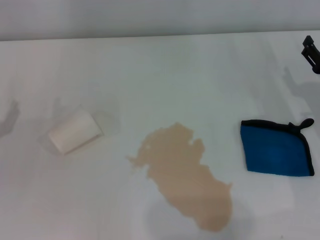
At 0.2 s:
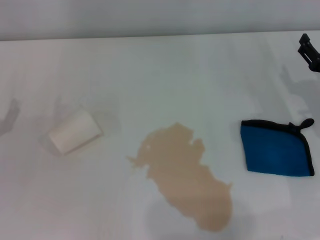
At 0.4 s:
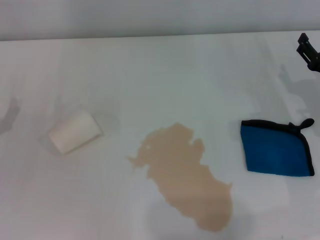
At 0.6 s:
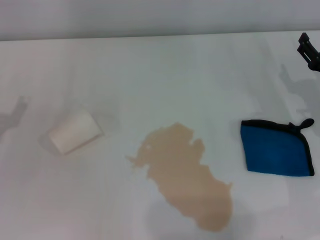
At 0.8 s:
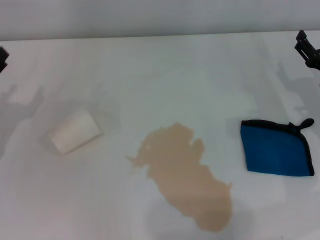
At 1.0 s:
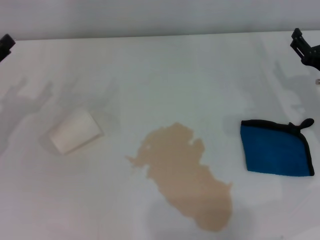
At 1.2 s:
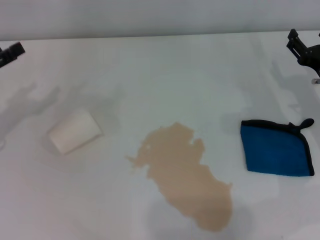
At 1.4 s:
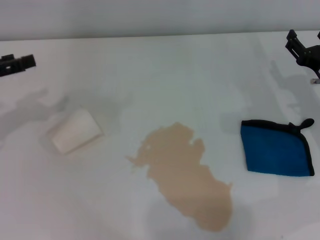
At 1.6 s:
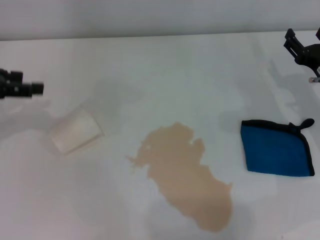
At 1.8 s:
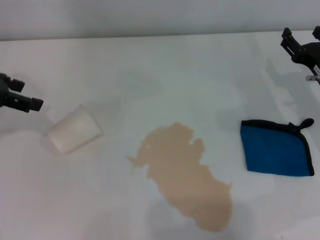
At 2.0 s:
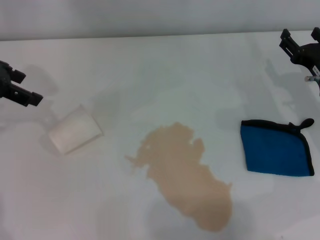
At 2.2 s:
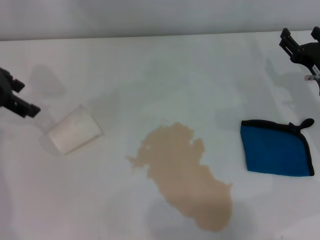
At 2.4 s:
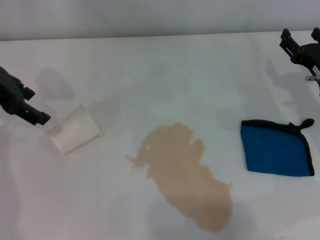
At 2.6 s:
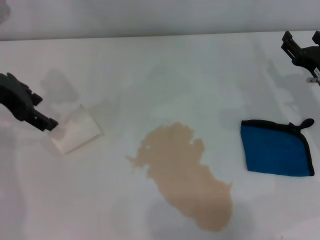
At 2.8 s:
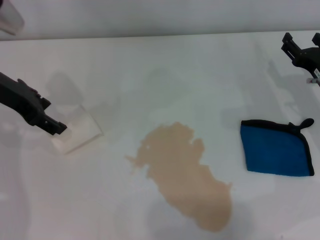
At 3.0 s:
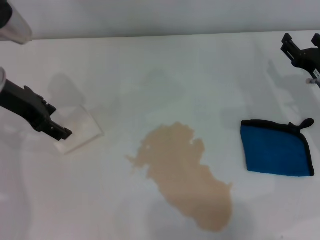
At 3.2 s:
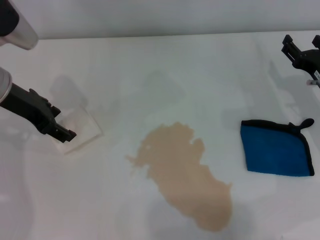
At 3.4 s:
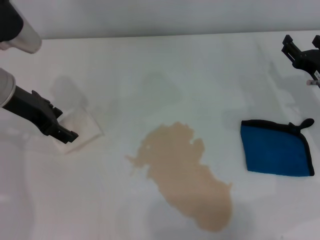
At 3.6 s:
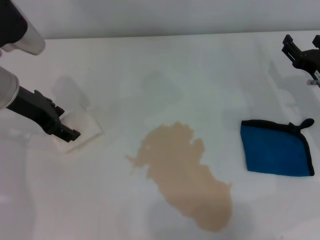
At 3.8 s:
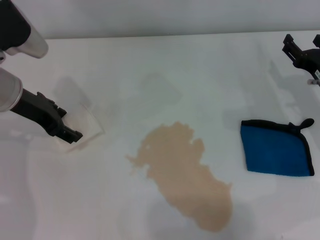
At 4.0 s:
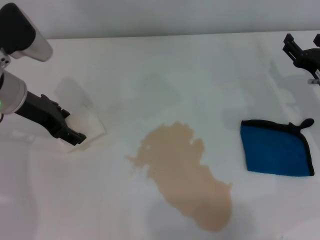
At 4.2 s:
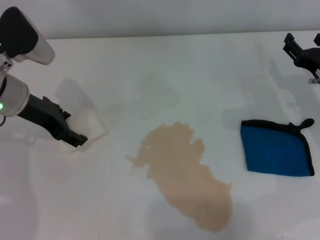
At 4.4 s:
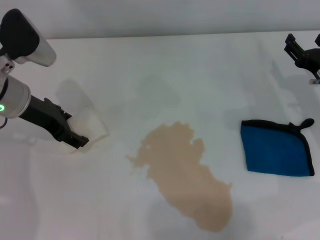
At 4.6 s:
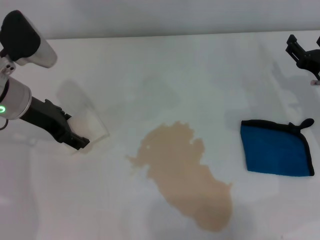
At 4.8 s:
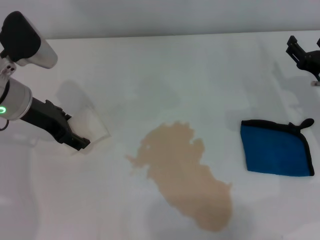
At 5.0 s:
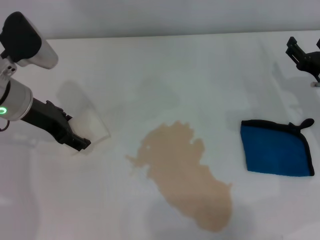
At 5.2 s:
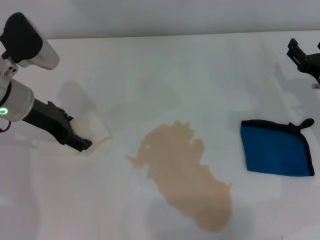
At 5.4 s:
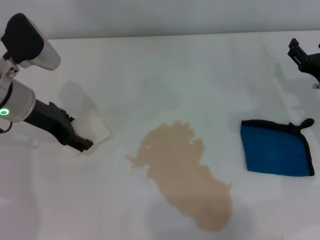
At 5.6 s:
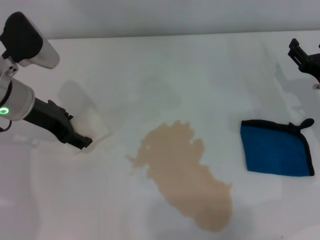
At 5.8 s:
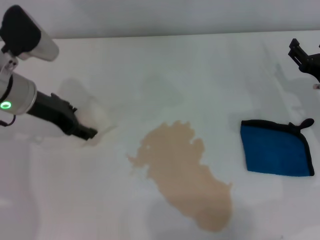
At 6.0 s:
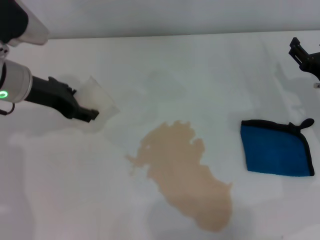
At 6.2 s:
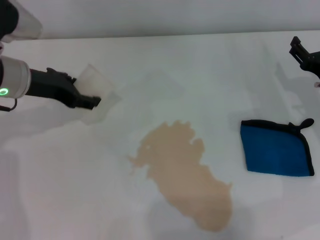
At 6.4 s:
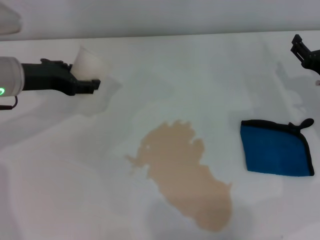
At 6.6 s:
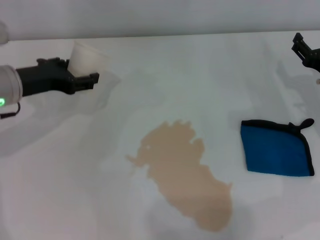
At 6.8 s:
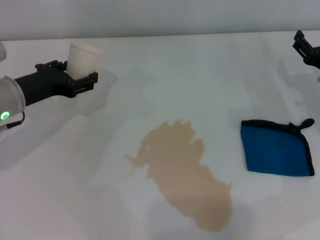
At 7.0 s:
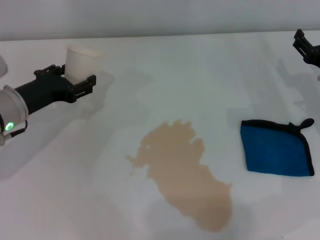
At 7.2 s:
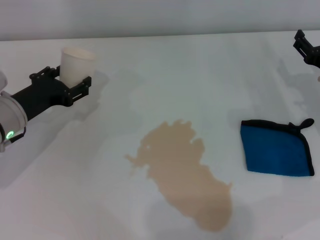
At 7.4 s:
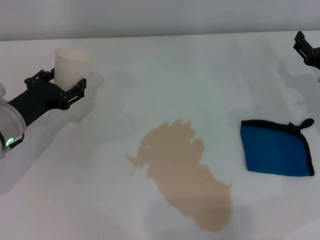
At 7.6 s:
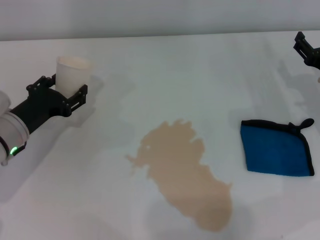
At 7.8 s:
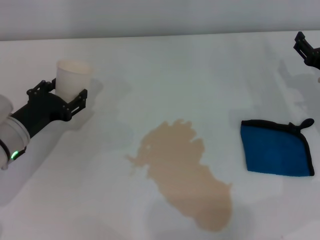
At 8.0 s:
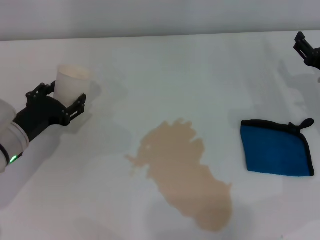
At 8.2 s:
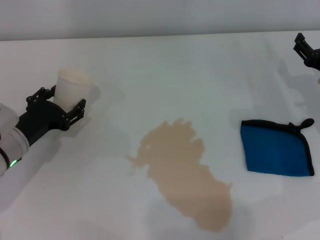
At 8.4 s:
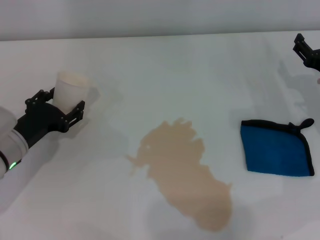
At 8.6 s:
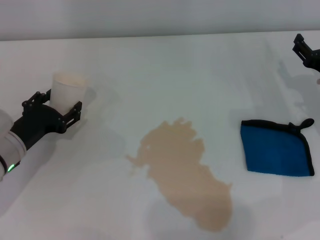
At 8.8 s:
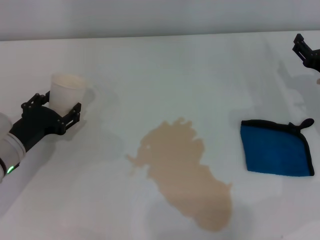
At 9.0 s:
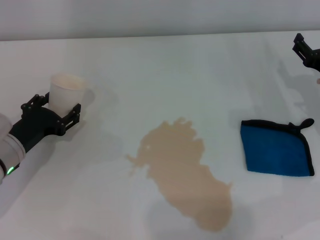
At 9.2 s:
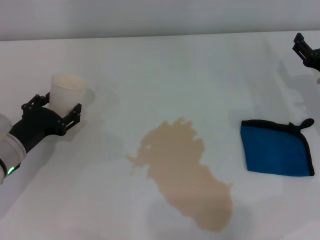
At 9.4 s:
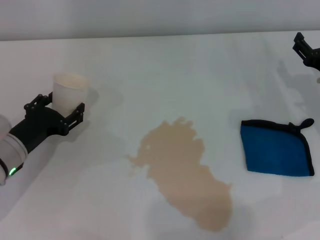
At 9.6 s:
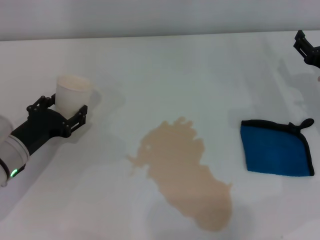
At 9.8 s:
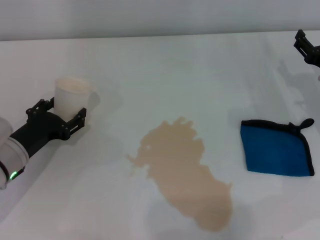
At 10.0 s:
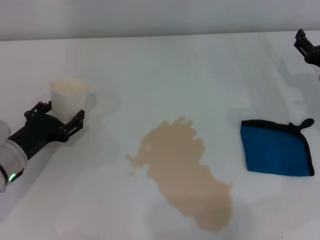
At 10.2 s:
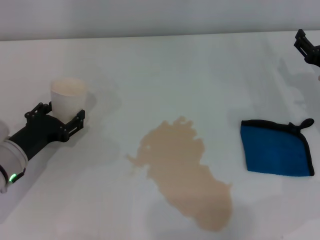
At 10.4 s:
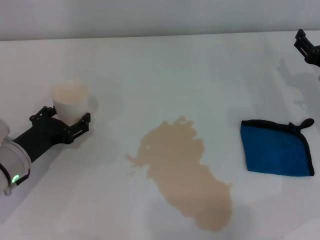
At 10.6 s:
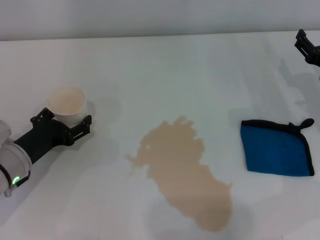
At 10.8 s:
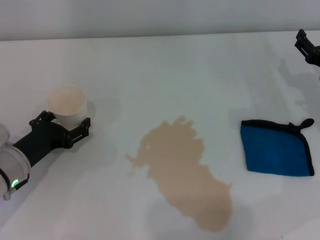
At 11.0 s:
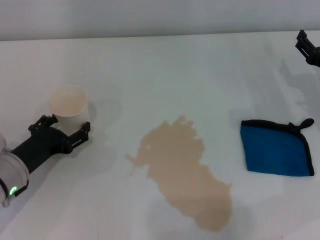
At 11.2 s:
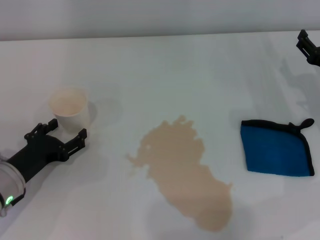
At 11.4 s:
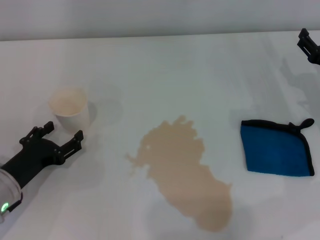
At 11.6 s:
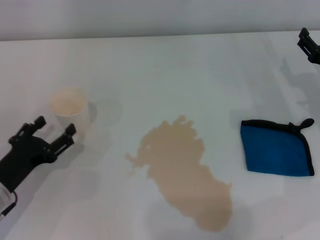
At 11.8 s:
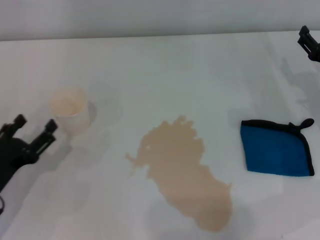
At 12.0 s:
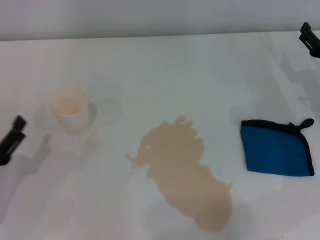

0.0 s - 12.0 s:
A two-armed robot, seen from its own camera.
Step, 0.0 s - 5.6 s: Grasp the paper cup with the left gripper.
Step, 6.0 s - 10.8 s: Stand the paper cup upright with the left gripper.
0.0 s - 1.6 s: The left gripper shifts some 20 cm upward and forward.
1.6 s - 3.0 s: The left gripper shifts roughly 10 cm to the right.
3.0 s - 4.4 s: The grippers stay close to where they were, moving slightly.
4.4 s - 6.0 s: The left gripper closes.
6.0 s - 7.6 s: The left gripper shifts approximately 10 cm downward and backward.
7.6 s - 10.4 s: The grippers move only a little.
10.4 s - 12.0 s: The left gripper travels backward and to the left by about 10 cm, and opens its fingers.

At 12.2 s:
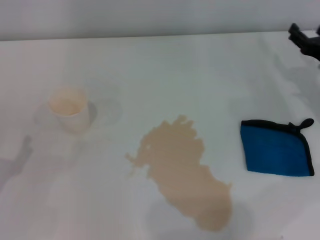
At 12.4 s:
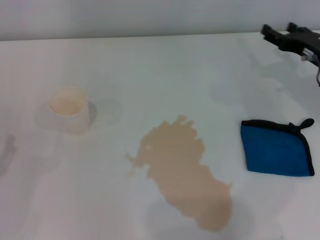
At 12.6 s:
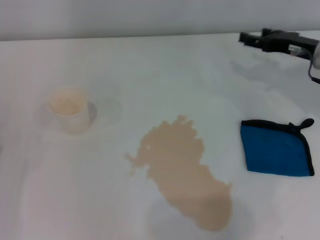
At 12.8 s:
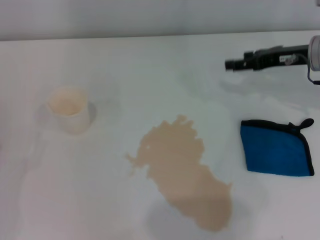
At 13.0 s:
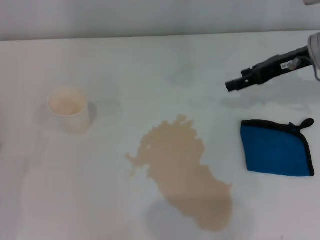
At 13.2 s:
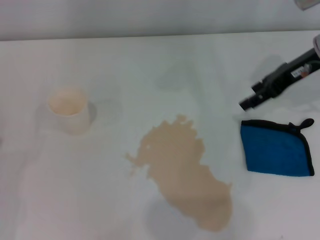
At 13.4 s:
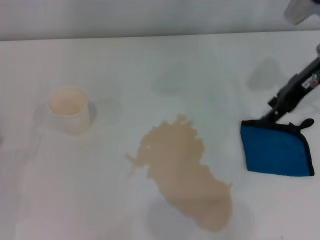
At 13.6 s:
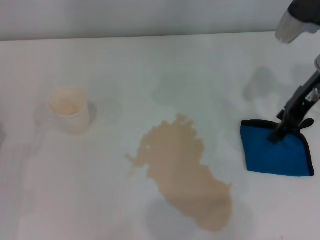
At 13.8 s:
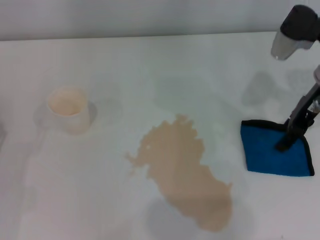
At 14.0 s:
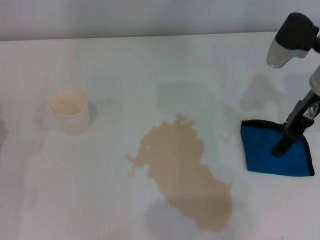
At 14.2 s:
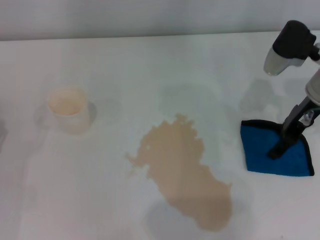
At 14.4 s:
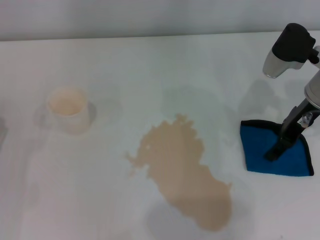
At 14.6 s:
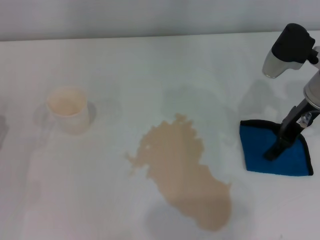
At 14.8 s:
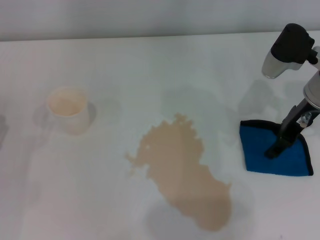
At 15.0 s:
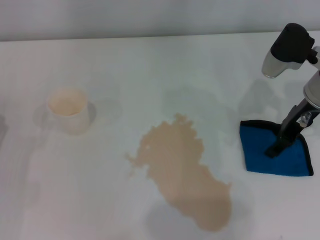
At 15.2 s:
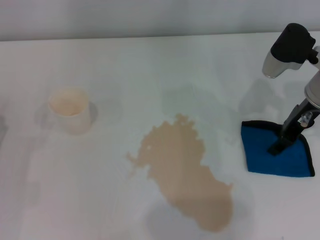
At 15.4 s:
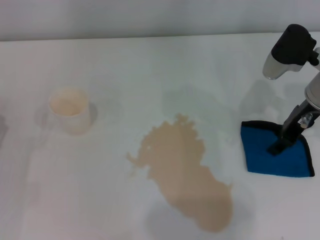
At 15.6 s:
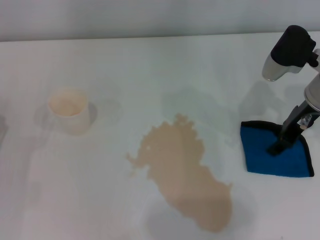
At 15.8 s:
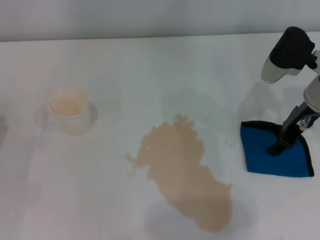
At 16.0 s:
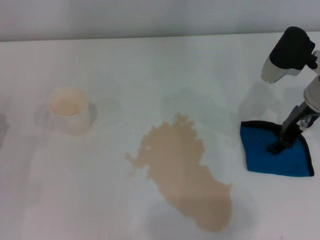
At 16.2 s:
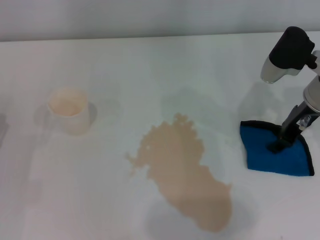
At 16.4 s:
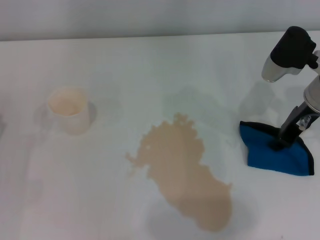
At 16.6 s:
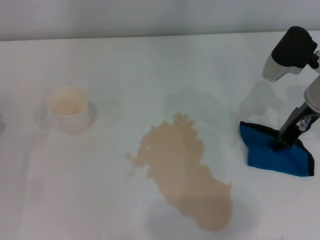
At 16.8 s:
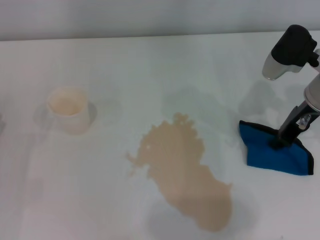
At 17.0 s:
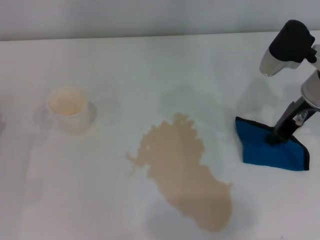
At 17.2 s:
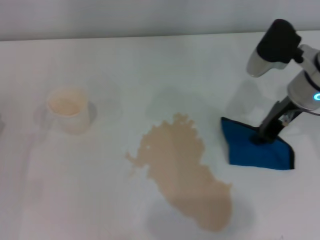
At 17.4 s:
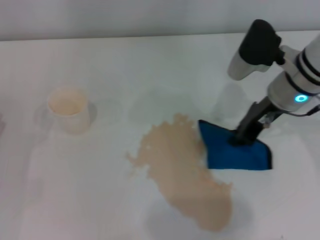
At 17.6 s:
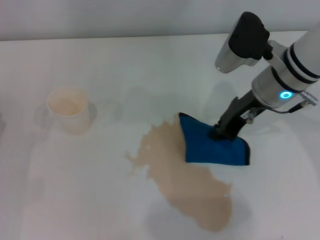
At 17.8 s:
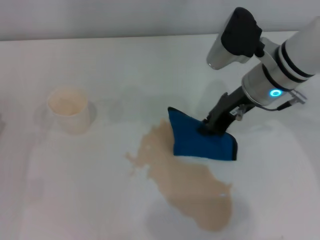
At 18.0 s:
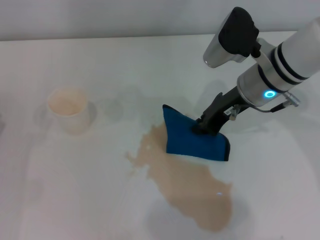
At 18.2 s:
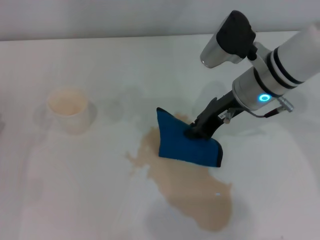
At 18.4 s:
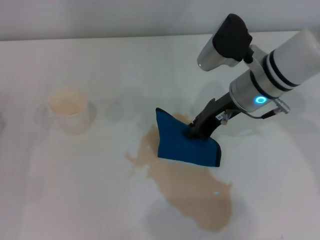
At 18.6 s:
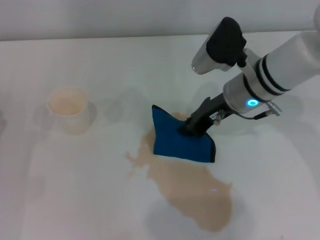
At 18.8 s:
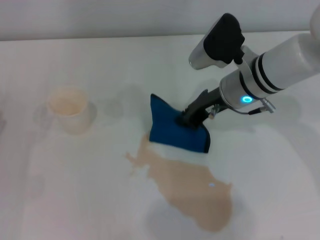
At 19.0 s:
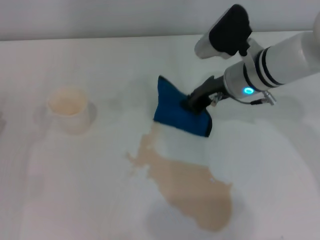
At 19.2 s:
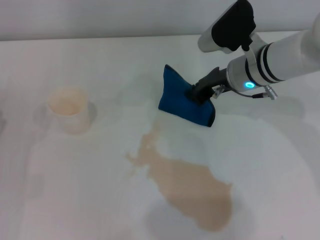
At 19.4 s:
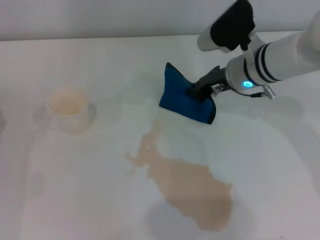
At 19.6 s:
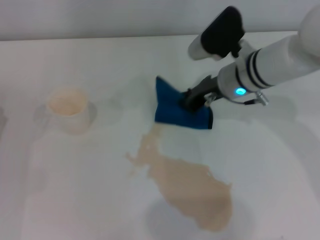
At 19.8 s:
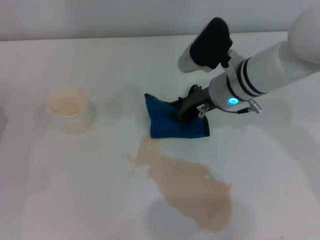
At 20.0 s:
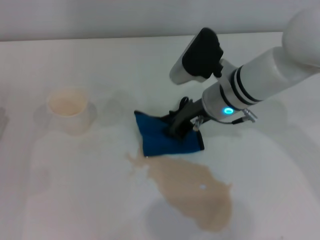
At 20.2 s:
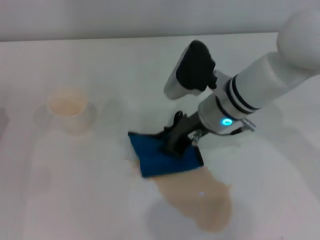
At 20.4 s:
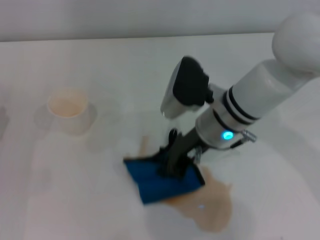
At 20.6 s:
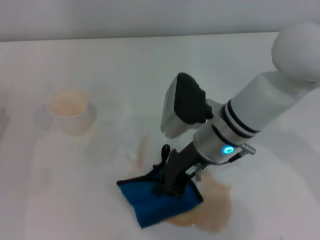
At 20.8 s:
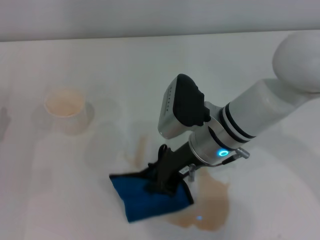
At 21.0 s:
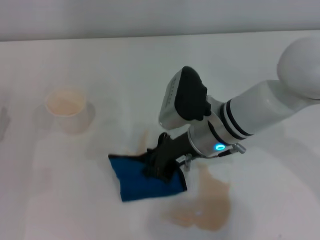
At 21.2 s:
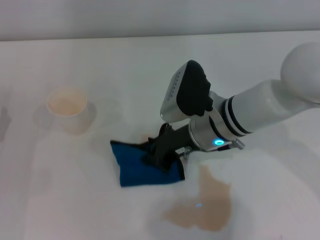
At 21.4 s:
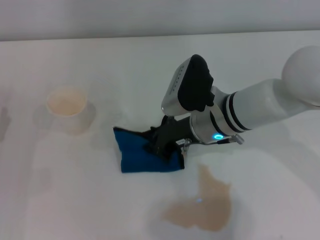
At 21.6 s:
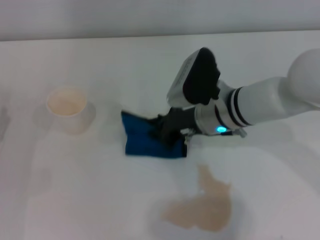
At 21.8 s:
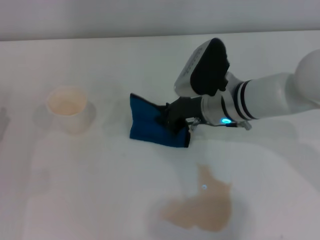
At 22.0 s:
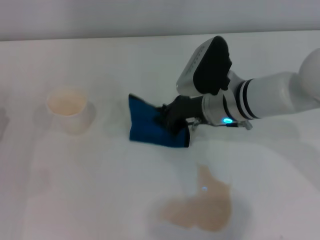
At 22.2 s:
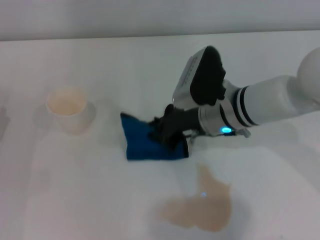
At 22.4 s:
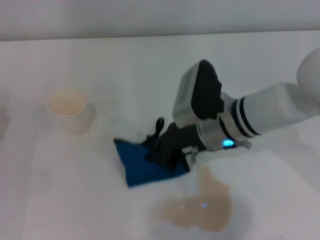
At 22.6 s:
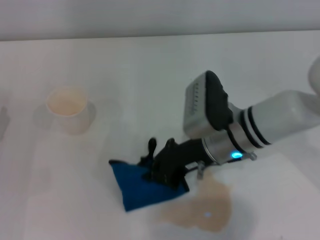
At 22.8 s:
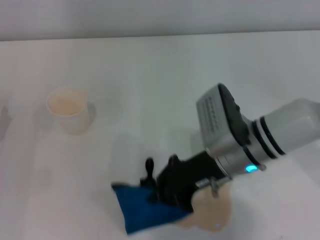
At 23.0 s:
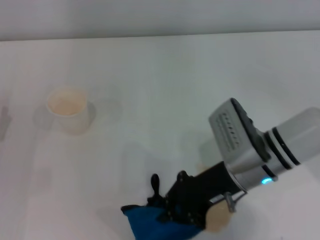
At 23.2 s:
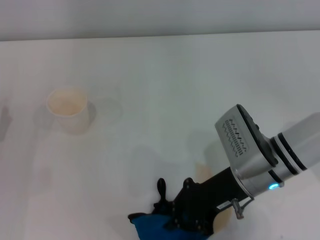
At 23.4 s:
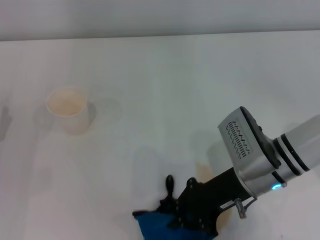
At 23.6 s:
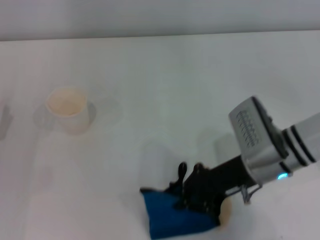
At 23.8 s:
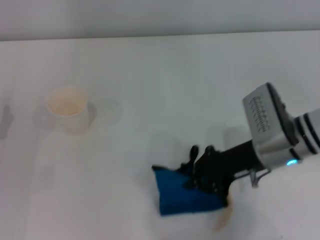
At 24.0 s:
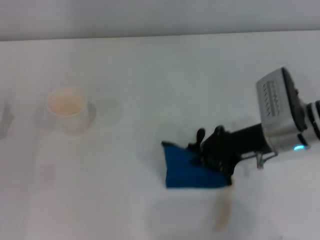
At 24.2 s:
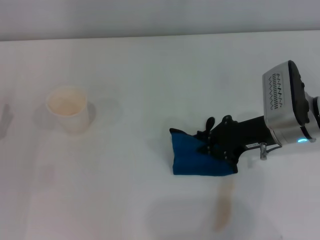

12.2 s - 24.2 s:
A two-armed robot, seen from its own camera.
Step, 12.2 s - 15.2 s: Grasp the rag with the right gripper.
12.2 s - 13.8 s: The right gripper goes approximately 10 cm upward and to the left.
13.8 s - 15.2 s: The grippers make only small movements.
15.2 s - 16.6 s: The right gripper closes.
16.6 s - 18.2 s: The right gripper heads to the left, covering roughly 10 cm.
19.8 s - 21.2 s: The right gripper moves backward, approximately 5 cm.
21.2 s - 22.6 s: The grippers stay close to where they were, moving slightly.
22.6 s - 24.2 s: The right gripper moves to the right, about 10 cm.
